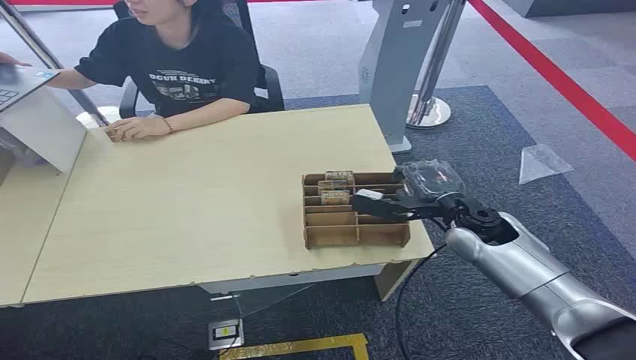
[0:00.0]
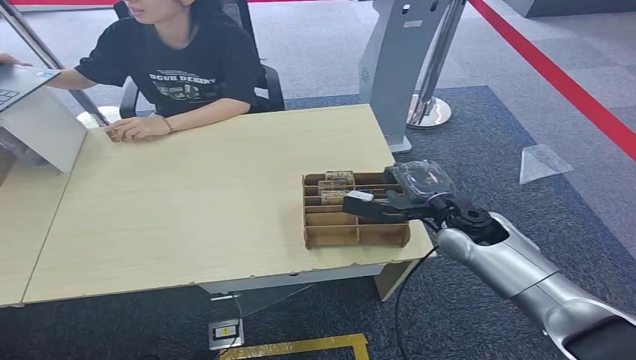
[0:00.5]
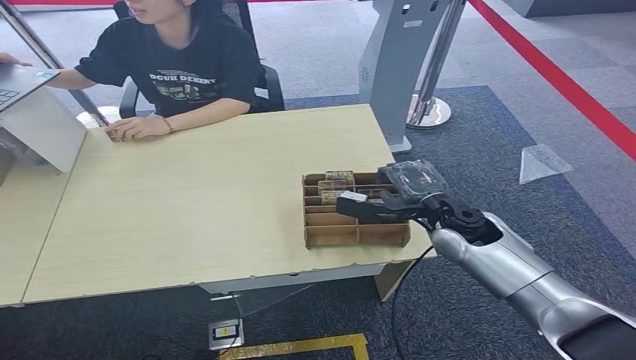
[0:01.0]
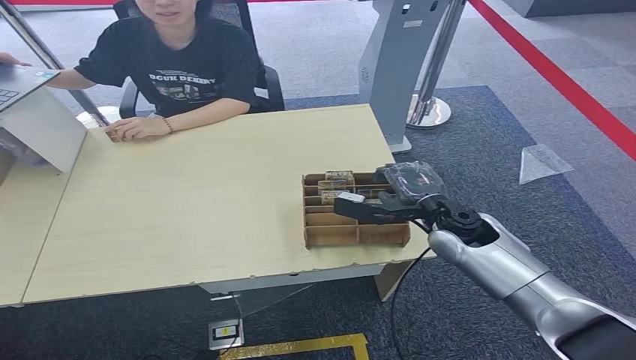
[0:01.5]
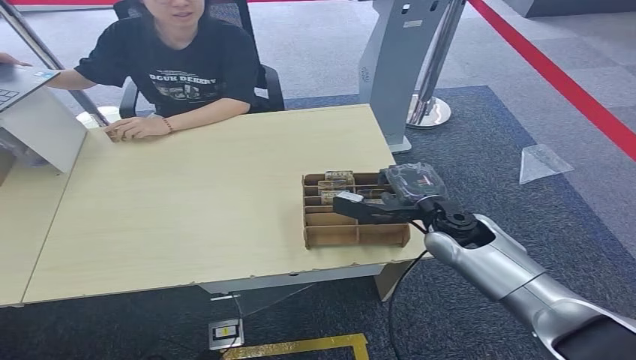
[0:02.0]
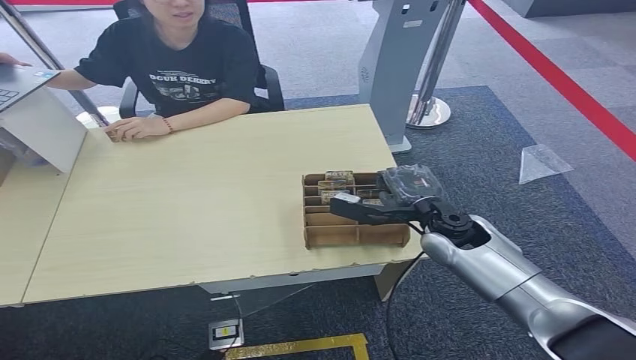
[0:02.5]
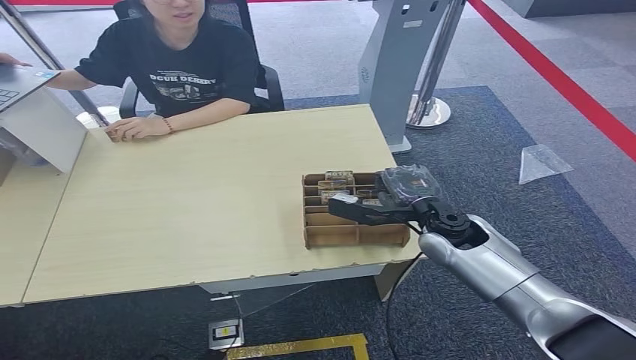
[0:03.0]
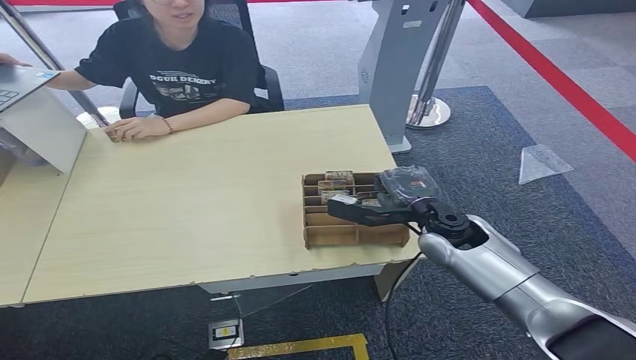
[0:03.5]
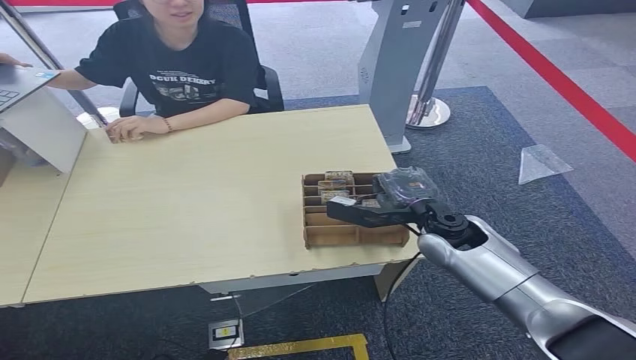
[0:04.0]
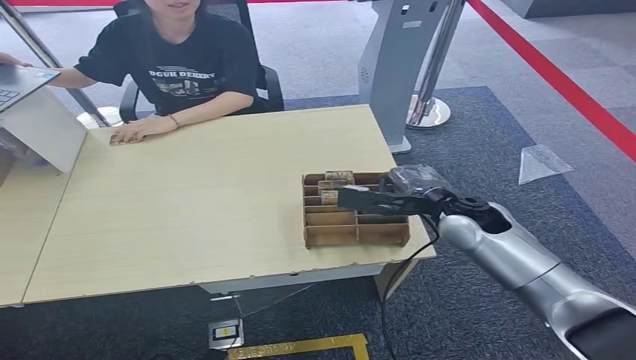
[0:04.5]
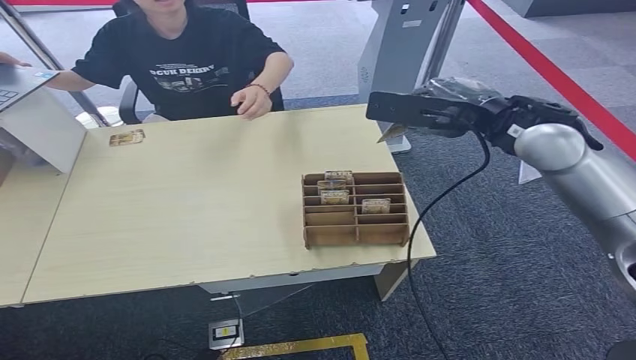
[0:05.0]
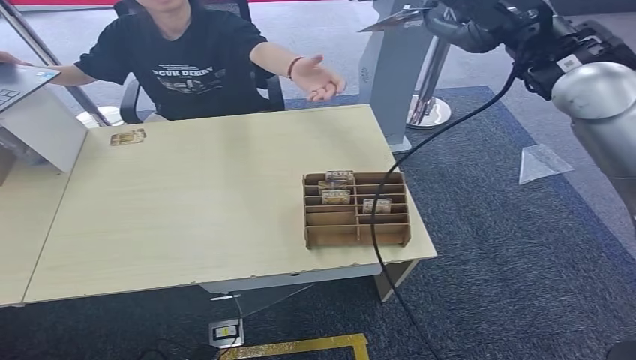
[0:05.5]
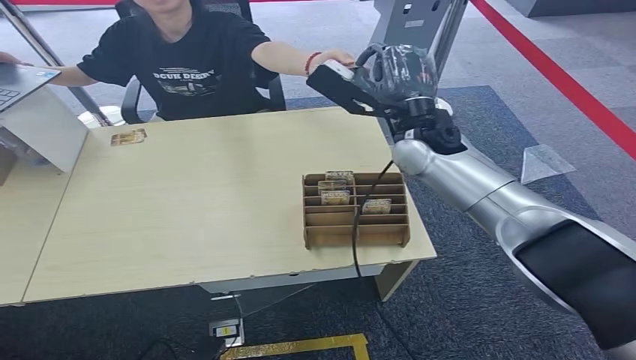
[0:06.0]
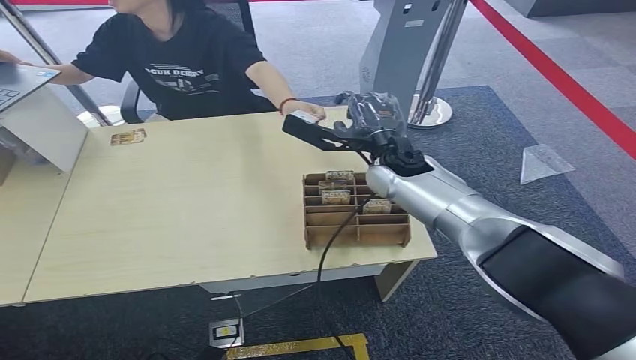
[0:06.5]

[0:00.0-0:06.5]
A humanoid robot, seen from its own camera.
Step, 0:00.0 to 0:04.5: Pick up the room card from the card holder.
Step, 0:05.0 to 0:06.5: Hand the room card to the target.
0:02.0 to 0:04.5: There are only small adjustments of the hands.
0:04.5 to 0:06.5: The right hand travels forward and to the left by some 15 cm, and goes upward and returns, roughly 30 cm each way.
